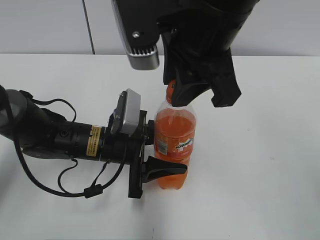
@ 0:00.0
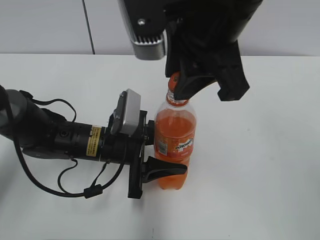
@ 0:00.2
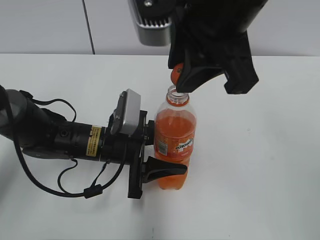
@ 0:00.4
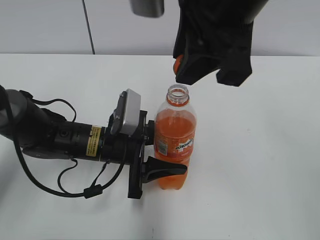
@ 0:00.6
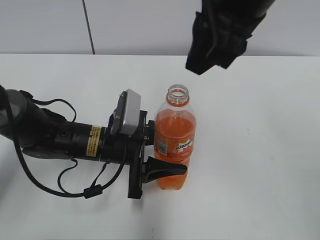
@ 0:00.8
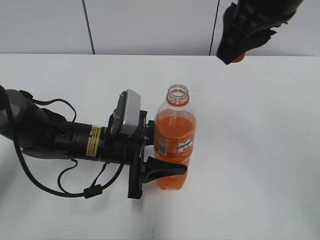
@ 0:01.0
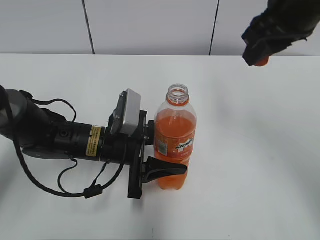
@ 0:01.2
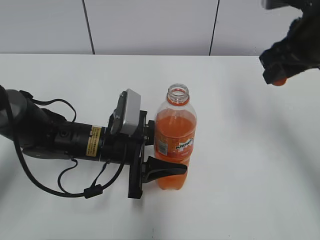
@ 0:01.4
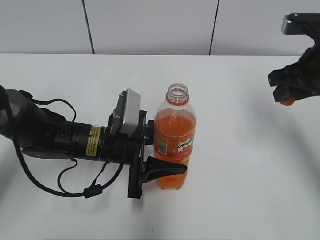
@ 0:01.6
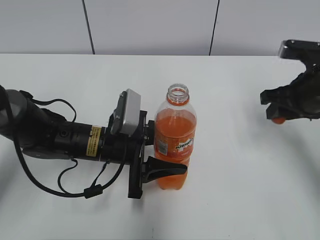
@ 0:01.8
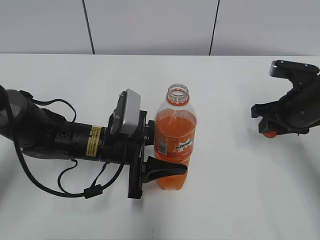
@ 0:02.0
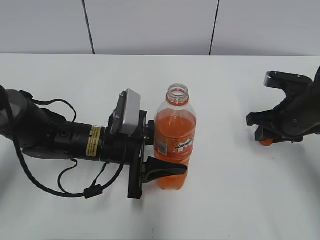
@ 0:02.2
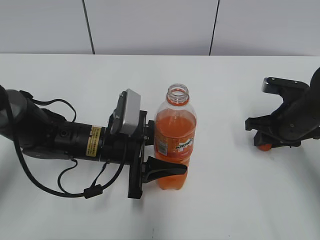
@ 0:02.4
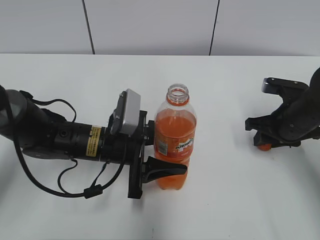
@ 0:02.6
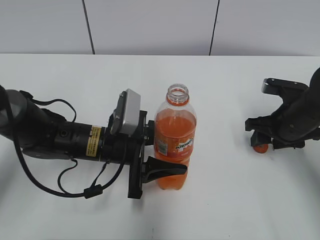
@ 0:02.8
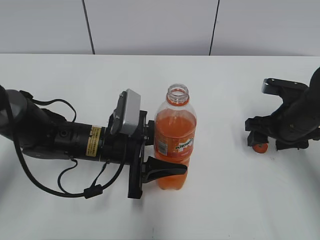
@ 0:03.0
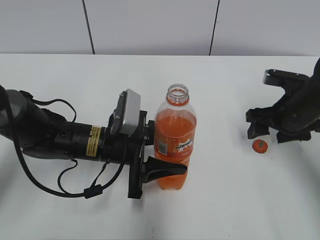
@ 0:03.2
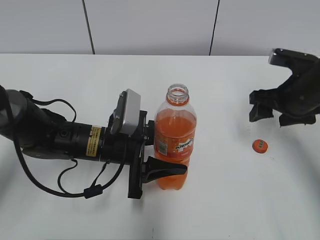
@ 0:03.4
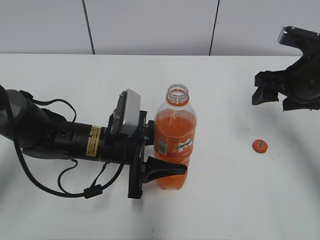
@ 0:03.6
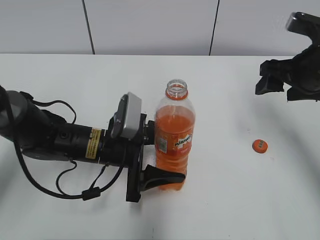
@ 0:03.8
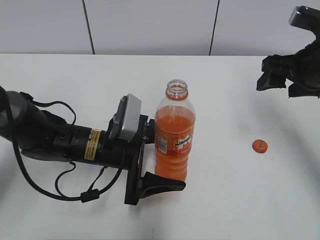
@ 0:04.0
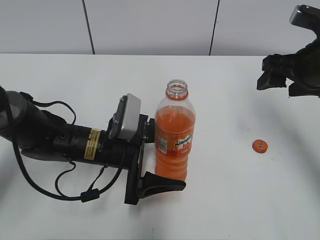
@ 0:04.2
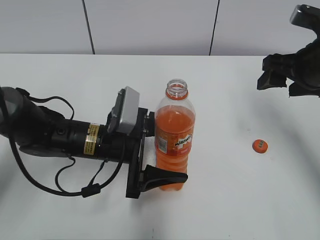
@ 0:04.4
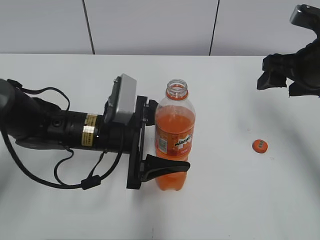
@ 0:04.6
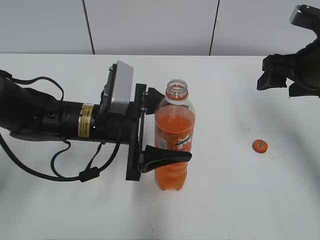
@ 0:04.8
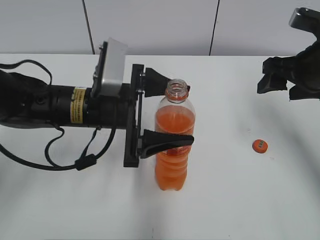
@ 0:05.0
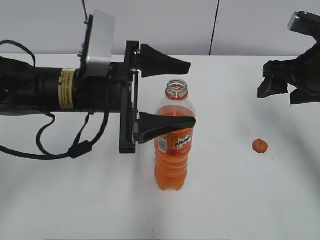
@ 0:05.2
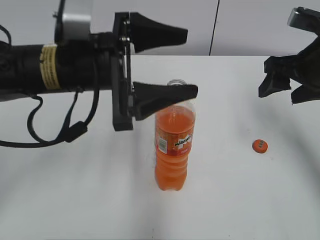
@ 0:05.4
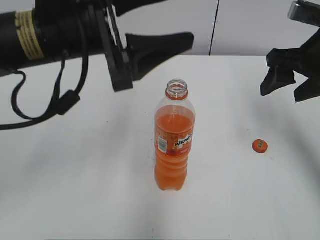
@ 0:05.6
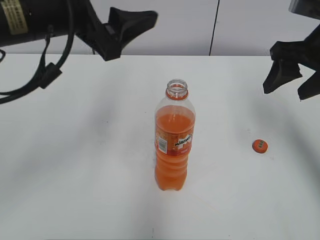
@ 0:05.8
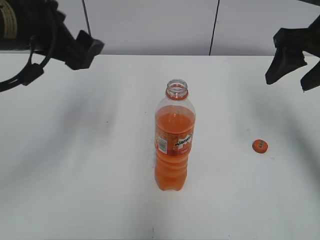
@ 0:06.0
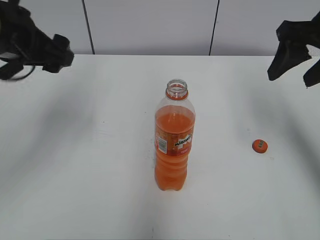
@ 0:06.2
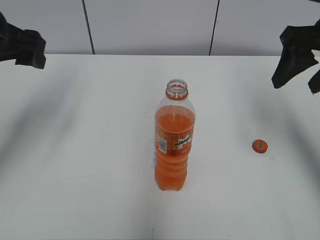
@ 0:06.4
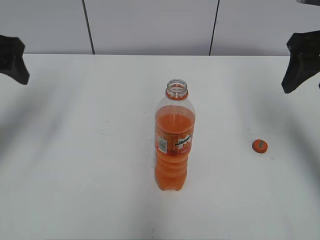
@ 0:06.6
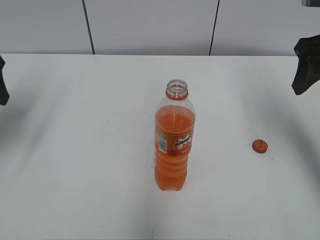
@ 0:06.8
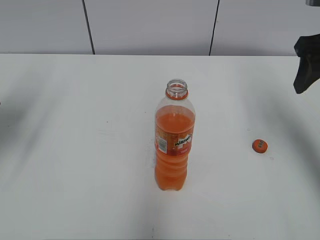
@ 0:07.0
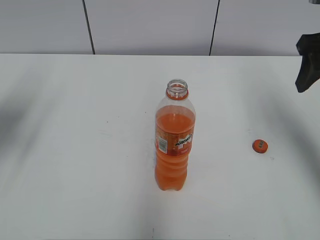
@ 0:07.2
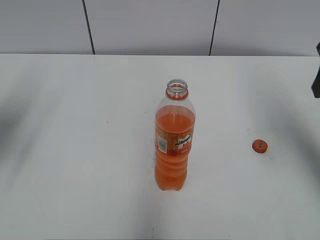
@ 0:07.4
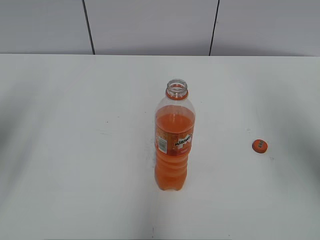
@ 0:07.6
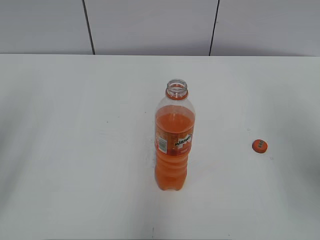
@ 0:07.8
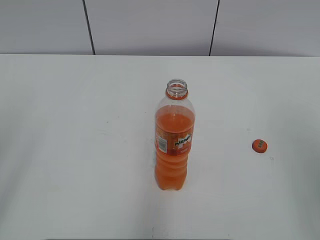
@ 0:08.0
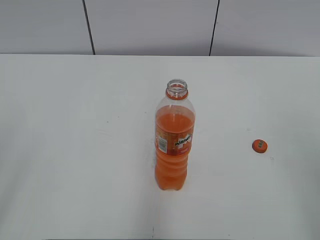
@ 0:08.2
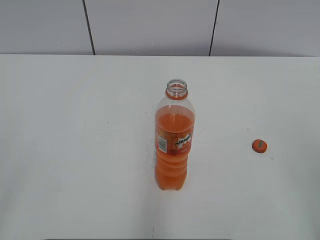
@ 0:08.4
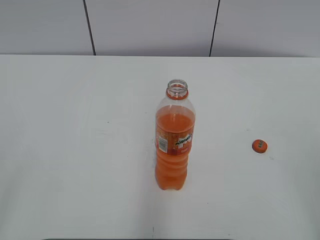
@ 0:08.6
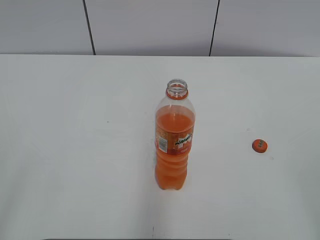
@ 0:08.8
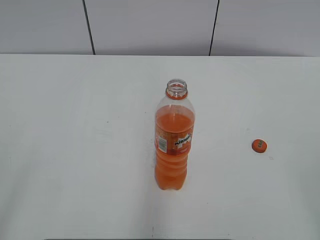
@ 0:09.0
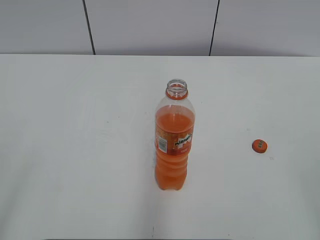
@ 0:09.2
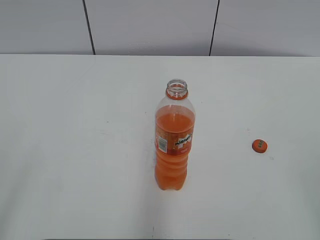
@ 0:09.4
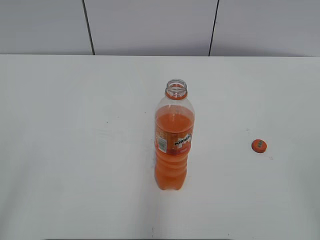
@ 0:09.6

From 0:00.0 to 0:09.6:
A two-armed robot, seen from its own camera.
Step, from 0:00.2 to 0:02.8: Place the bottle cap on the right.
From 0:00.0 to 0:01.6: The right gripper travels to the right and downward by about 20 cm.
From 0:01.6 to 0:03.2: The right gripper travels downward by approximately 10 cm, and opens up.
From 0:03.2 to 0:04.8: The right gripper is displaced upward by roughly 10 cm. The left gripper is displaced upward by roughly 5 cm, and opens its fingers.
From 0:04.8 to 0:06.4: The right gripper travels upward by roughly 5 cm; the left gripper heads upward and to the left, covering roughly 20 cm.
From 0:06.4 to 0:08.0: Both grippers travel together backward, about 20 cm.

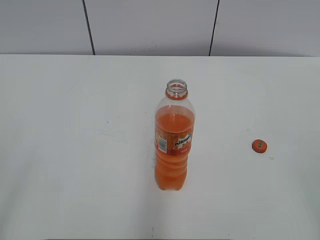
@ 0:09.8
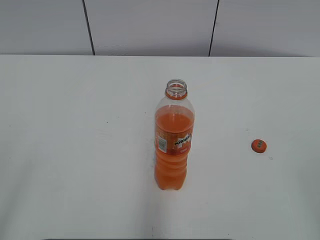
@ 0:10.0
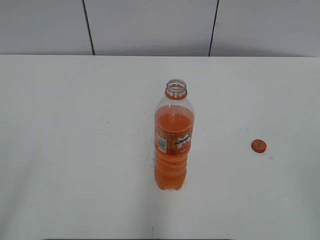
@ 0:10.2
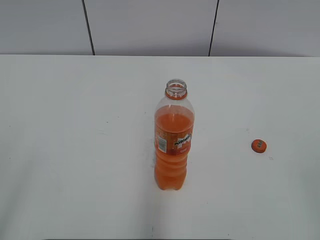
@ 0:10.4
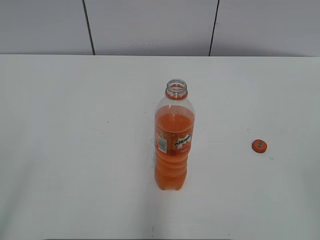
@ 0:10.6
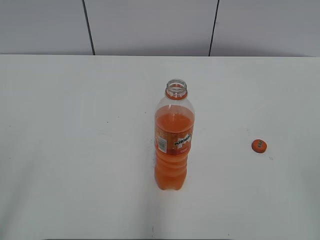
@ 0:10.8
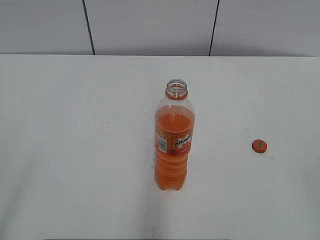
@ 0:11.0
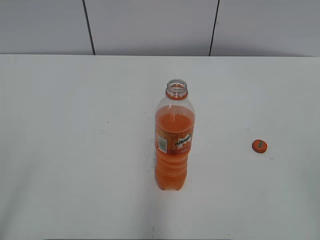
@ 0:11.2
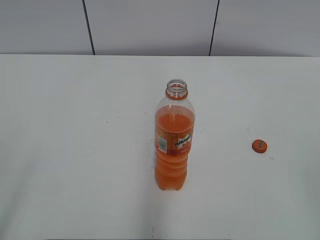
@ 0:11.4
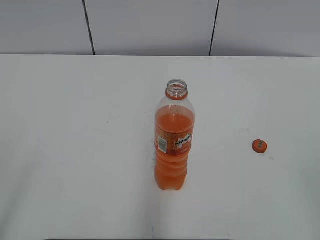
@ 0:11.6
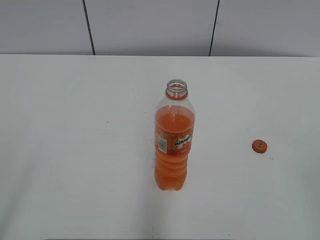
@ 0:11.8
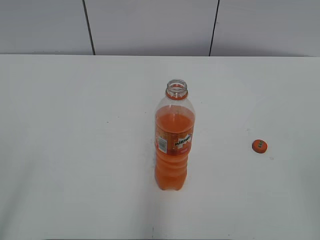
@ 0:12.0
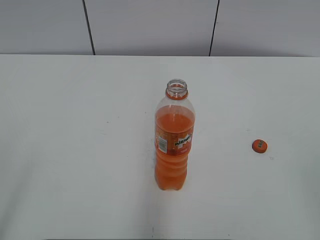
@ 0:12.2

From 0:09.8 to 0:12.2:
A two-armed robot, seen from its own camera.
From 0:09.8 to 0:12.2: Both grippers stay put.
